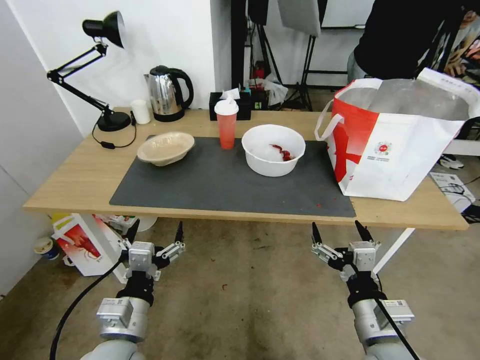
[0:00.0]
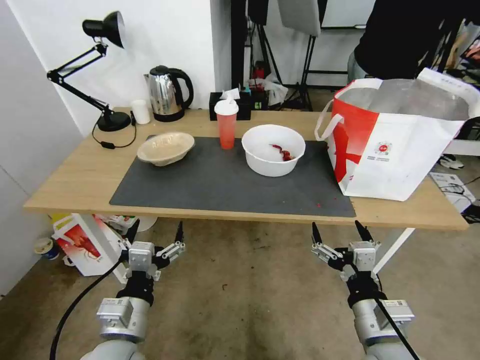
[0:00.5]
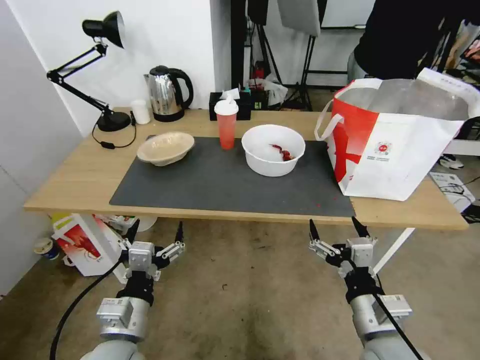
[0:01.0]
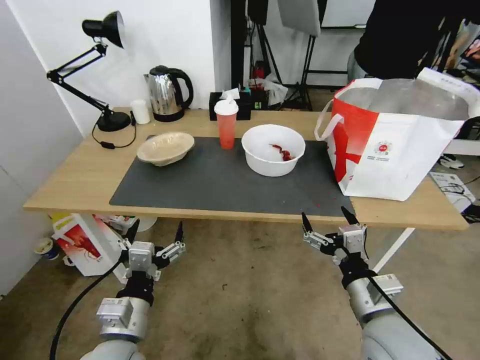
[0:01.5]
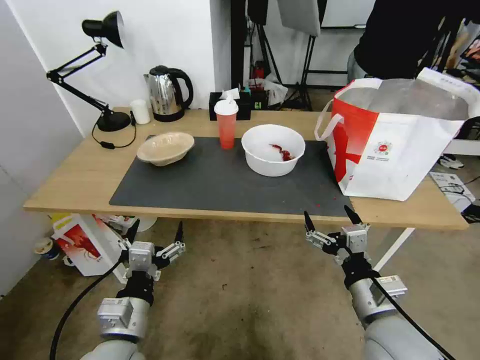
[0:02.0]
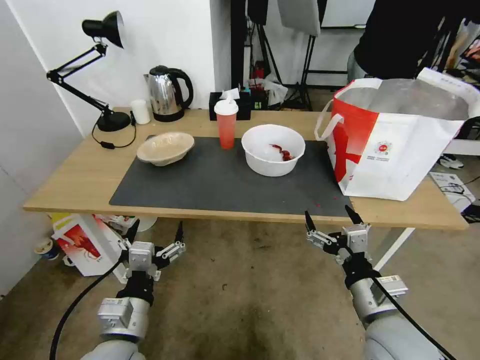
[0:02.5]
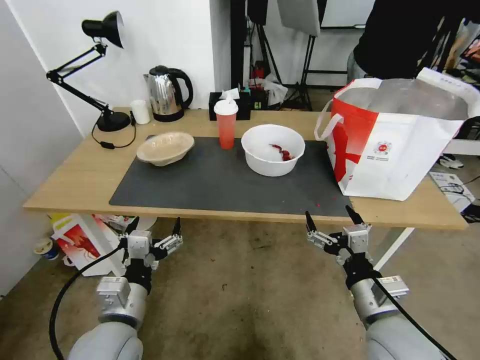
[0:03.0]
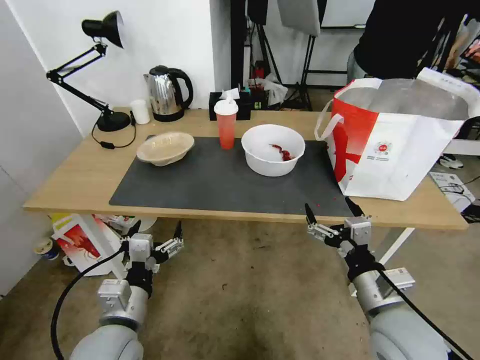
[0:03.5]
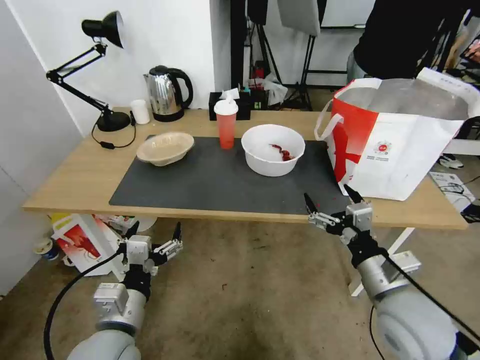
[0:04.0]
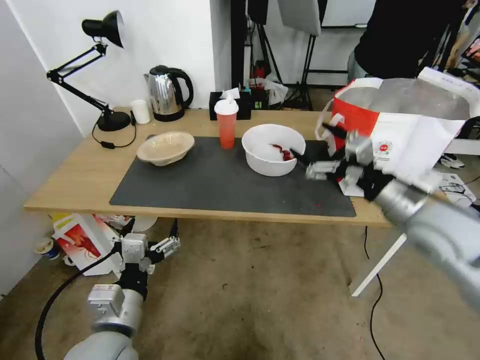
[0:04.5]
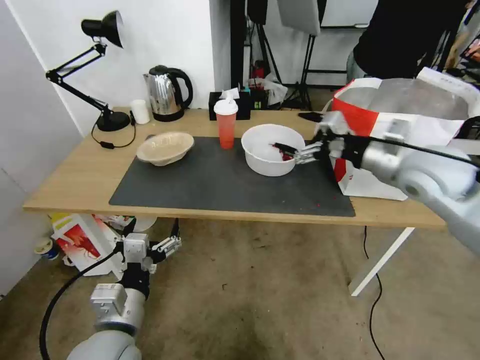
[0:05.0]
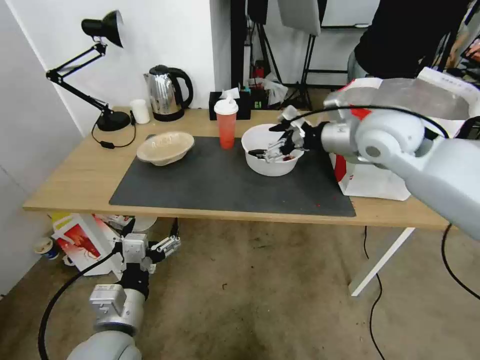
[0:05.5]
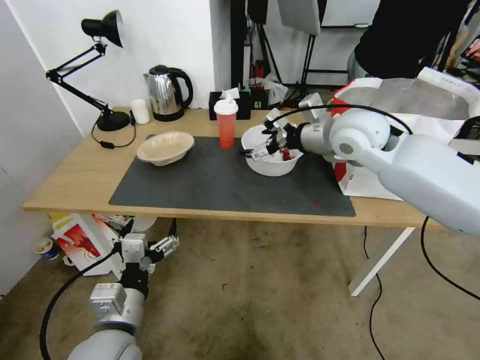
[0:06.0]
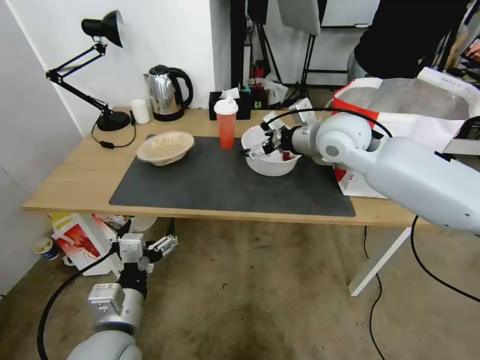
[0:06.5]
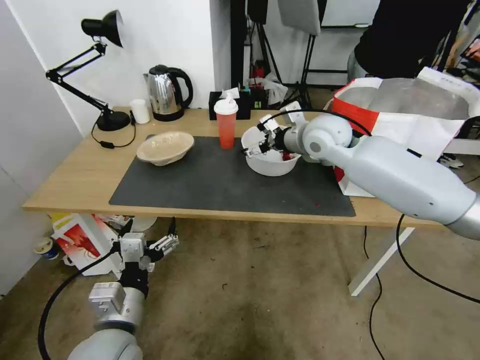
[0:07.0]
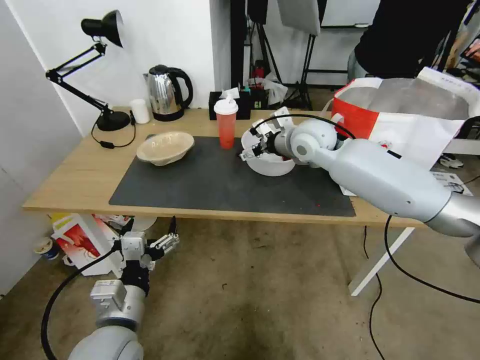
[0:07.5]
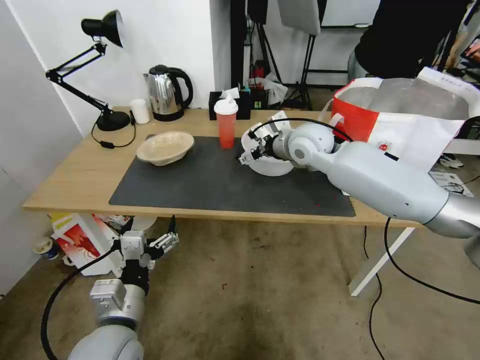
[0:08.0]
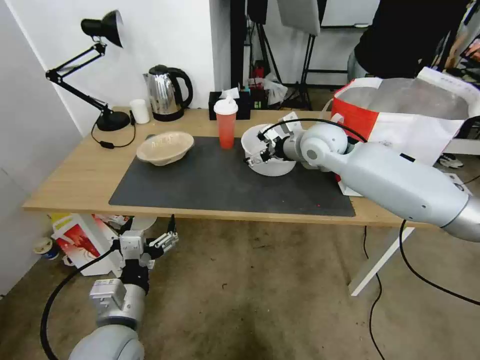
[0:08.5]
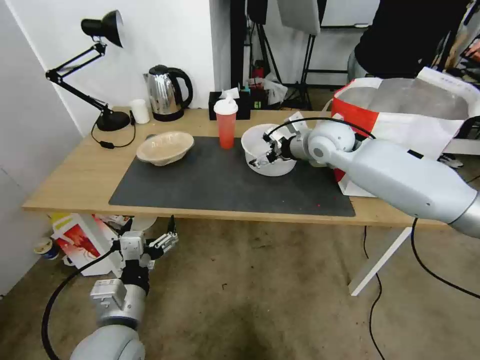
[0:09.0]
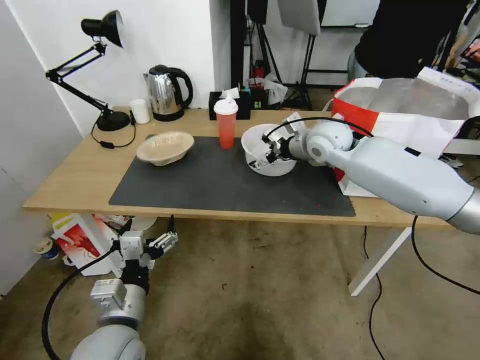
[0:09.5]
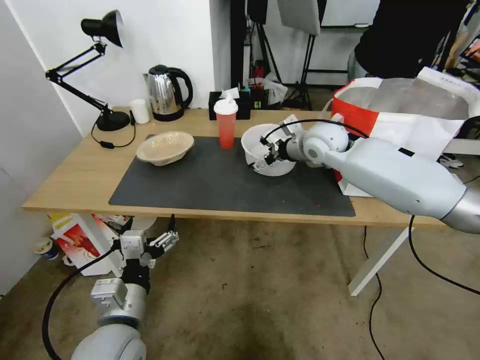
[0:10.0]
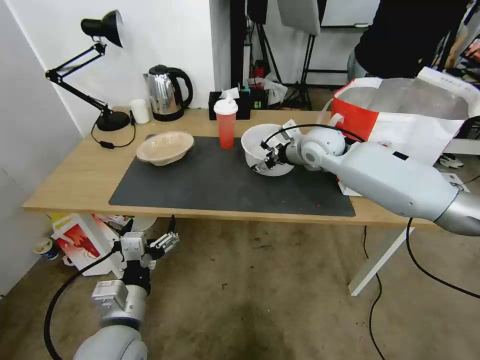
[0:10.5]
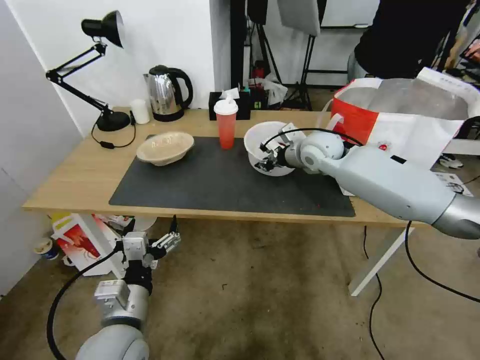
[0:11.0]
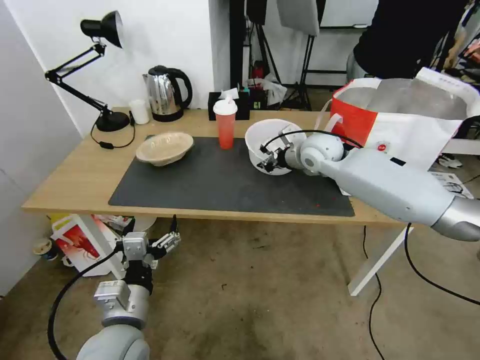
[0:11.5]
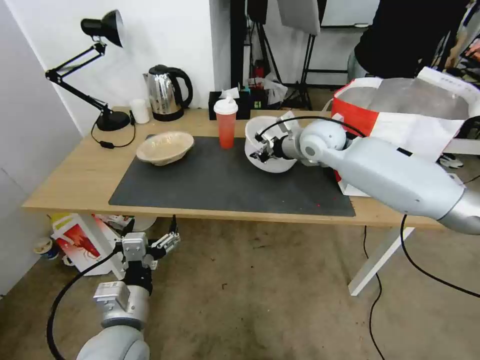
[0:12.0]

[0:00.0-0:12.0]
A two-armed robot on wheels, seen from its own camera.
Task of the whole recording: Pick up the trash from the table and place it into the takeout bag.
0:02.0 to 0:04.0: There are only small adjustments of the grippers.
0:04.0 to 0:06.0: The right gripper goes some 30 cm forward and upward.
0:06.0 to 0:08.0: The right gripper shifts about 10 cm downward, forward and to the left.
0:08.0 to 0:10.0: The grippers make only small movements.
0:10.0 to 0:12.0: The right gripper closes up.

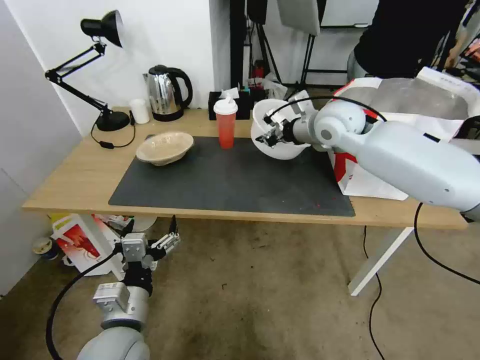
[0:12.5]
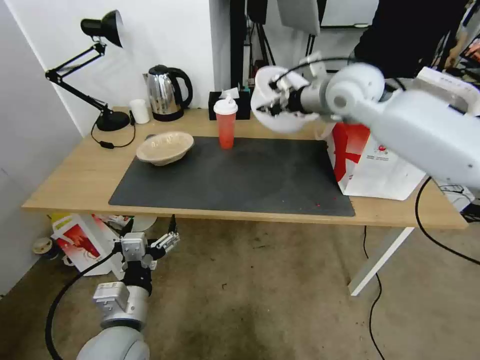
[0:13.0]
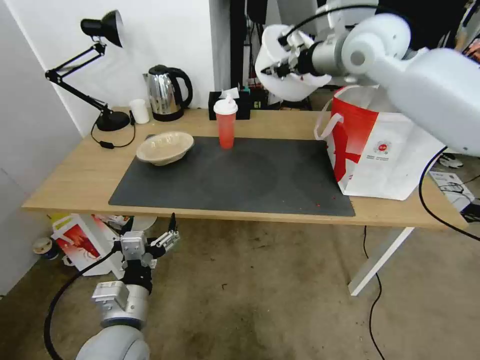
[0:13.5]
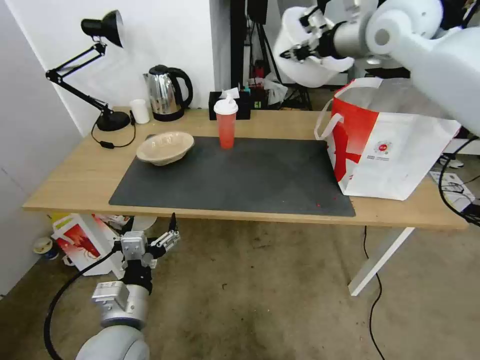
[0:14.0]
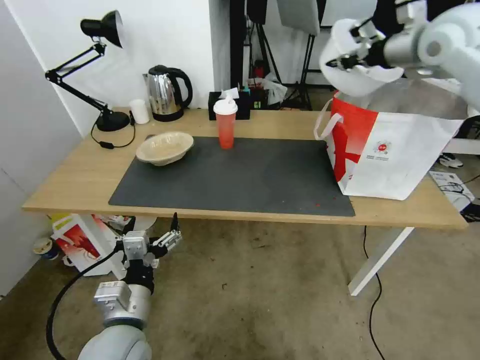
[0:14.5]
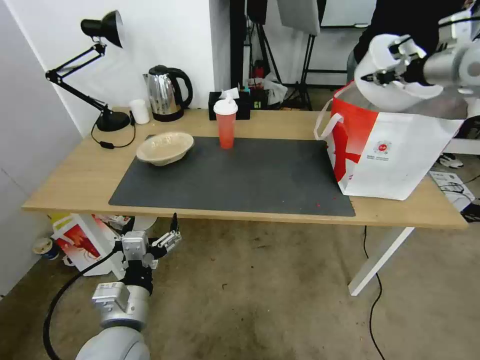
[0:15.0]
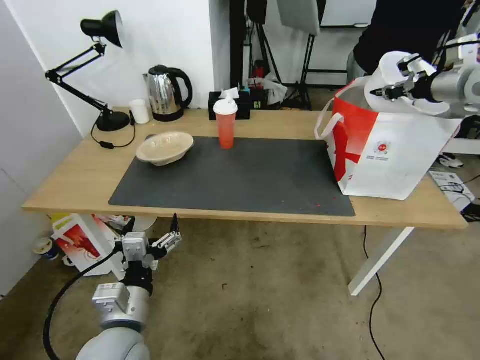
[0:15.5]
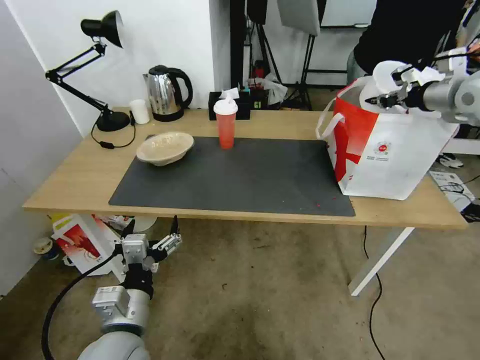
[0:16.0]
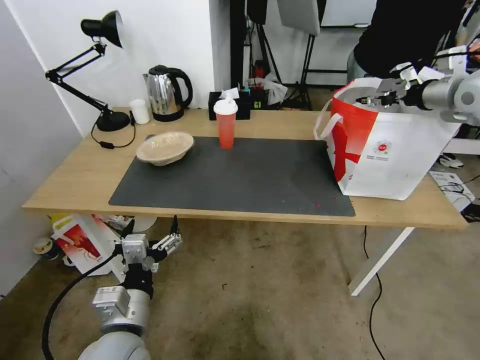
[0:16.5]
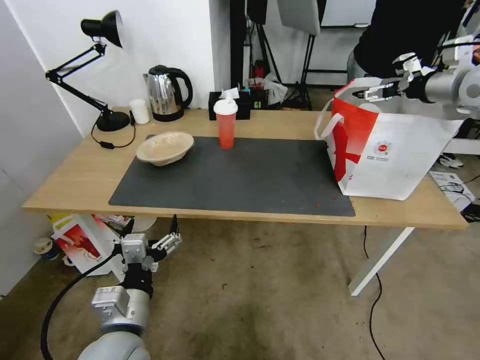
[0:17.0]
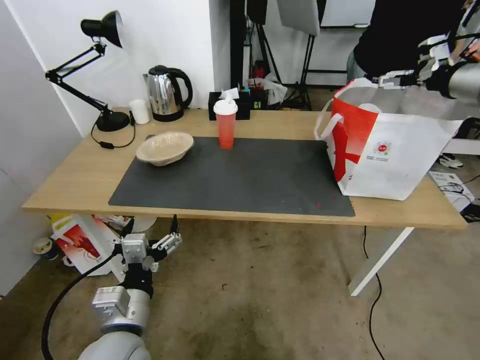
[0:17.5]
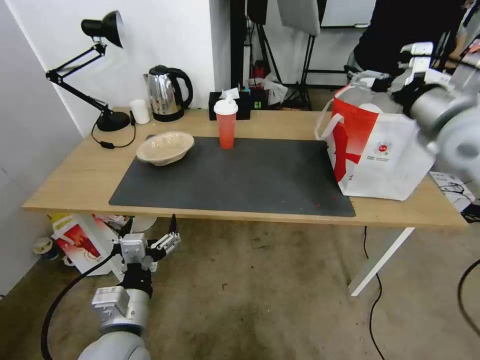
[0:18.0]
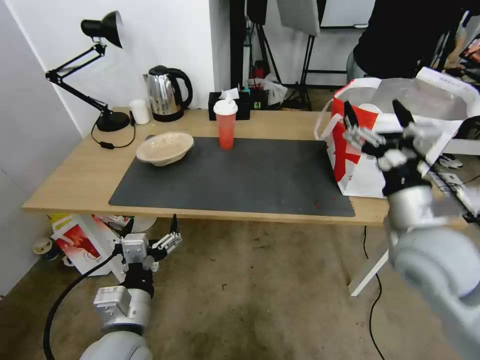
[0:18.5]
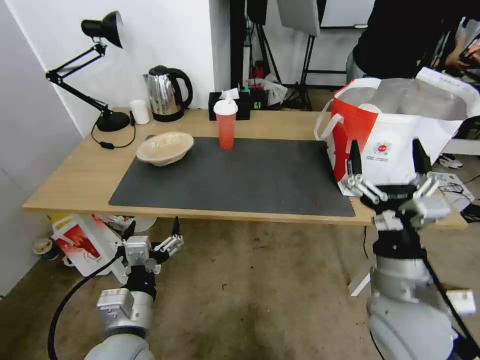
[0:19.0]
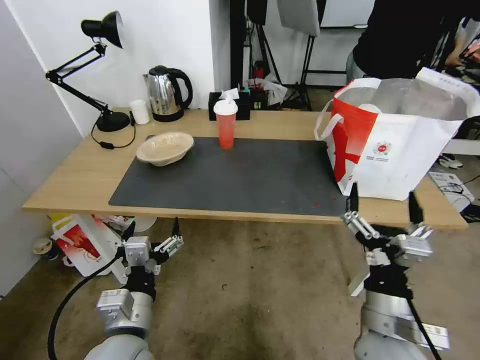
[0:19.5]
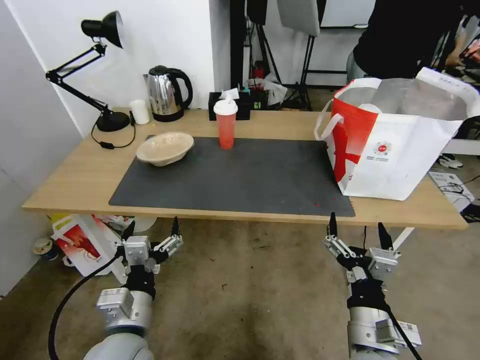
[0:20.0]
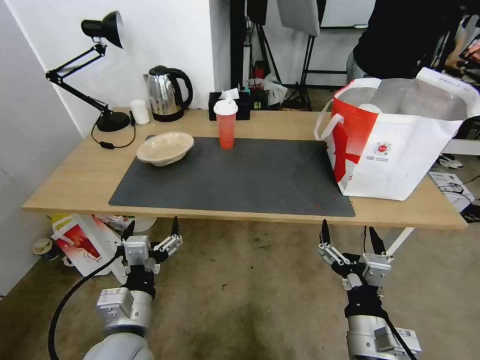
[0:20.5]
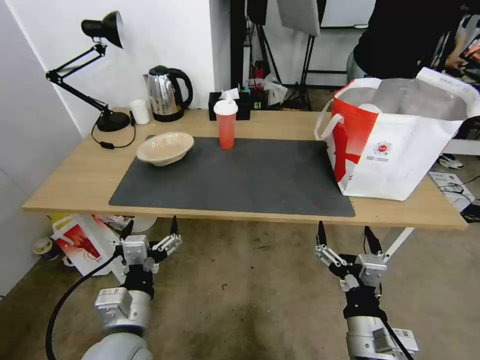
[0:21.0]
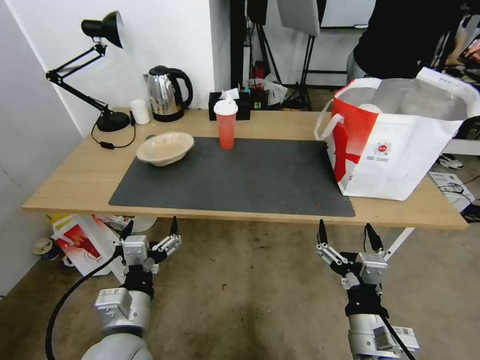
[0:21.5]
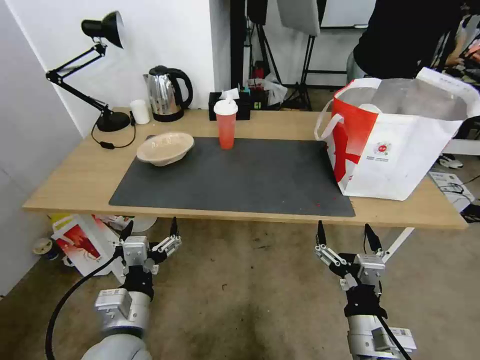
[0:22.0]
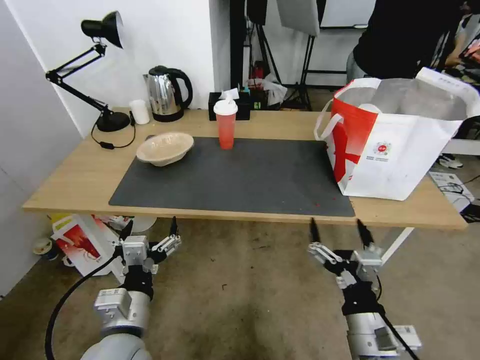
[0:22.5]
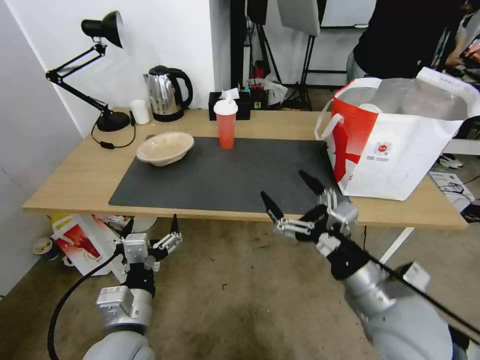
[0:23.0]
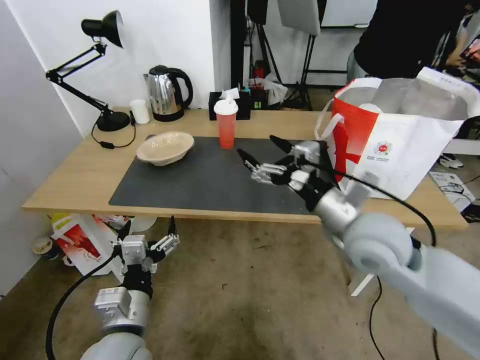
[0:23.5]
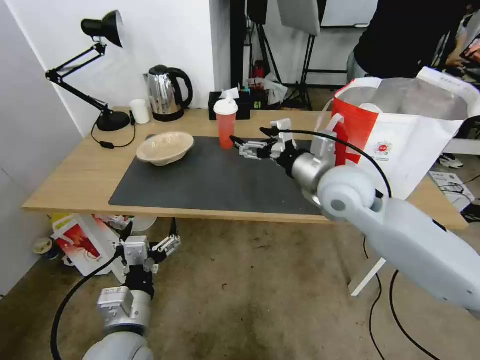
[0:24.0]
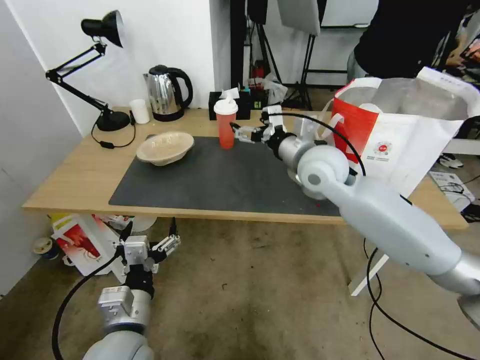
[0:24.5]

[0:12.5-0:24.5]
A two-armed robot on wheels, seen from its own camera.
Task of the whole recording: Pick up the trash from the table and place it into the takeout bag.
0:12.5 to 0:14.5: The right gripper goes approximately 20 cm upward and to the right.
0:14.5 to 0:16.5: The right gripper shifts about 15 cm to the right and downward, and opens up.
0:16.5 to 0:18.5: The right gripper travels backward, to the left and downward by roughly 30 cm, and opens.
0:18.5 to 0:20.5: The right gripper heads backward, downward and to the left, covering some 25 cm.
0:20.5 to 0:22.5: There are only small adjustments of the grippers.
0:22.5 to 0:24.5: The right gripper shifts roughly 35 cm forward and upward.

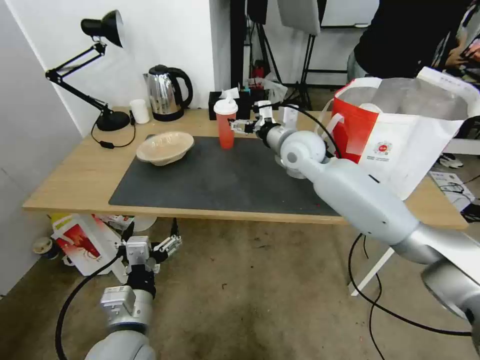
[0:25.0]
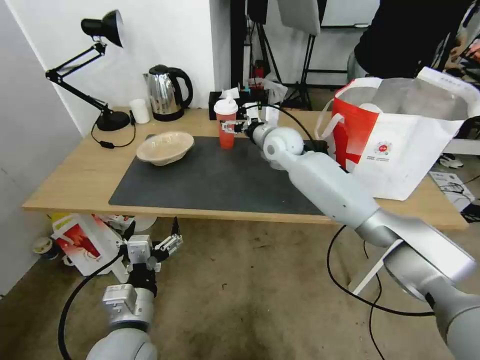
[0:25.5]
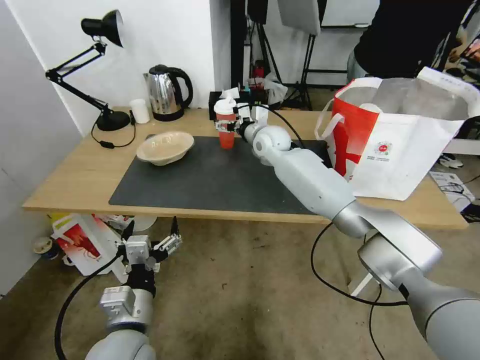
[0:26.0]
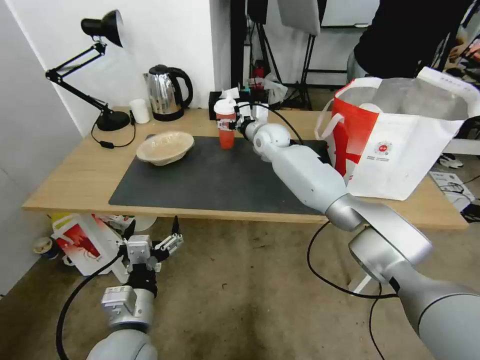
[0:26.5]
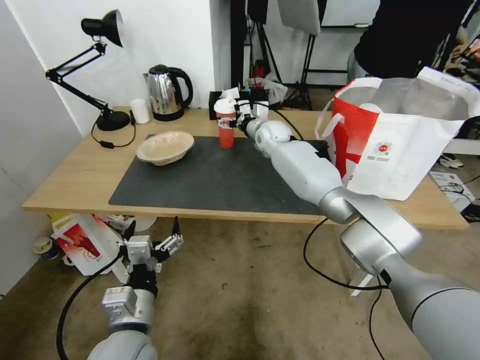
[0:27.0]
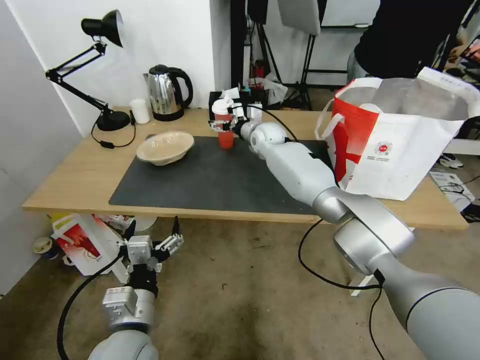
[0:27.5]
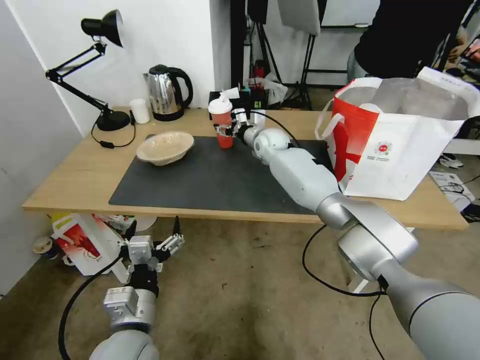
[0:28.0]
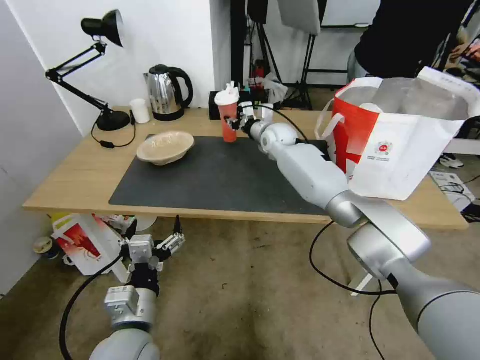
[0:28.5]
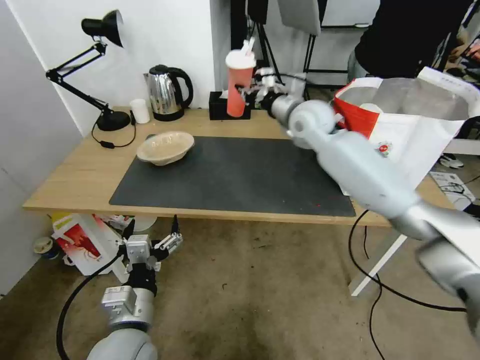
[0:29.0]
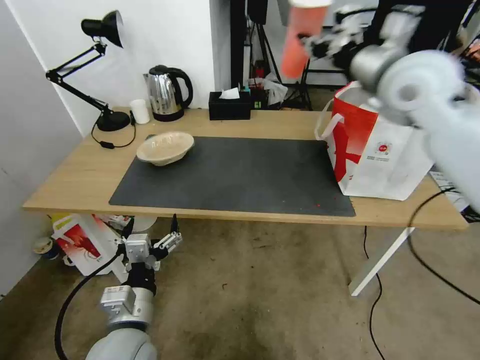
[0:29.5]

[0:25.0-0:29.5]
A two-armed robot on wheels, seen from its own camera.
Task of the whole recording: Pick up the trash from the table and place it into the takeout bag.
0:25.0 to 0:27.0: The right gripper shifts about 15 cm forward and downward.
0:27.0 to 0:29.5: The right gripper goes roughly 35 cm upward, backward and to the right, and closes.
